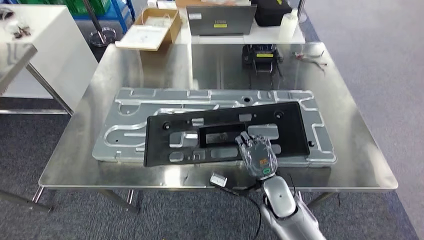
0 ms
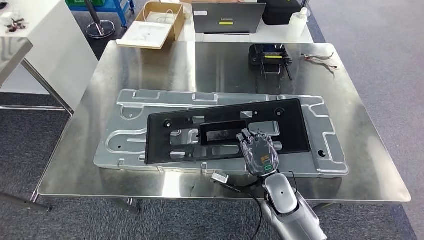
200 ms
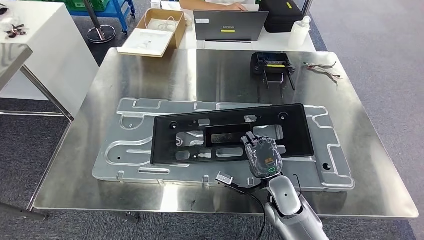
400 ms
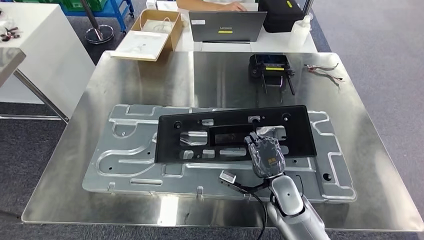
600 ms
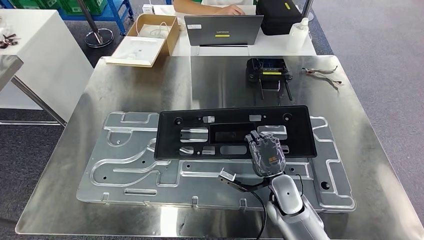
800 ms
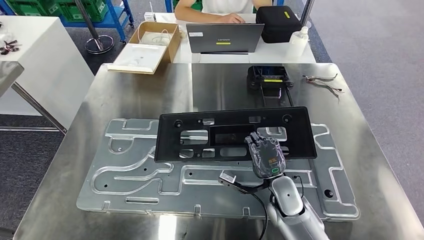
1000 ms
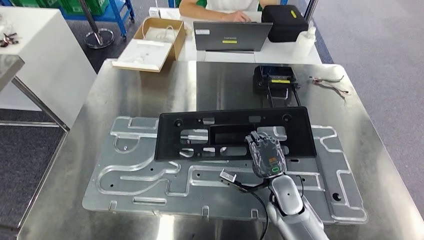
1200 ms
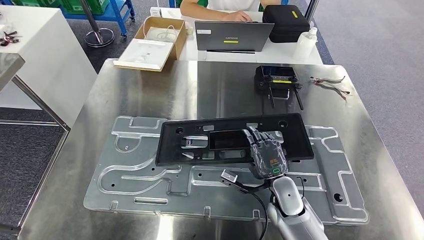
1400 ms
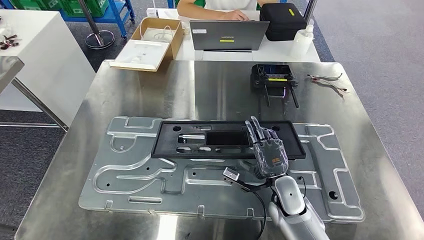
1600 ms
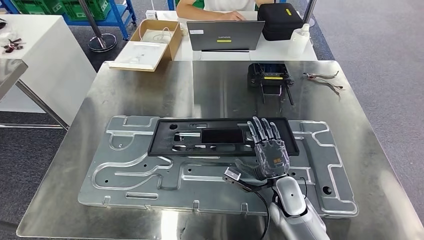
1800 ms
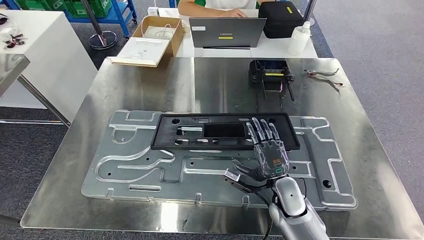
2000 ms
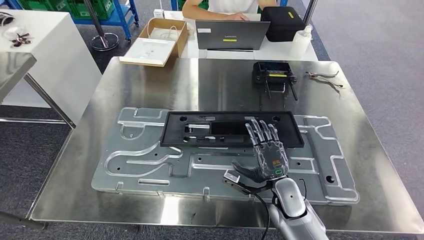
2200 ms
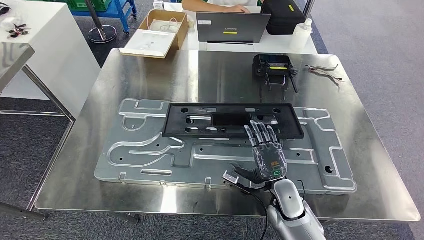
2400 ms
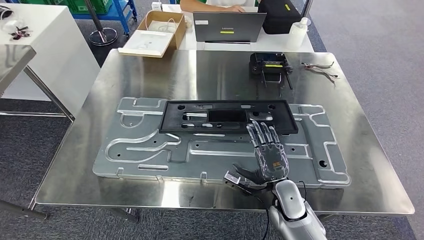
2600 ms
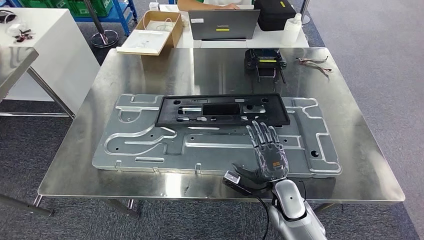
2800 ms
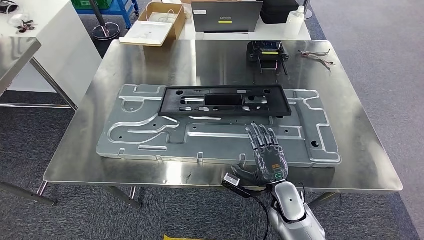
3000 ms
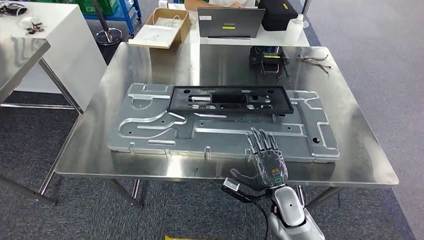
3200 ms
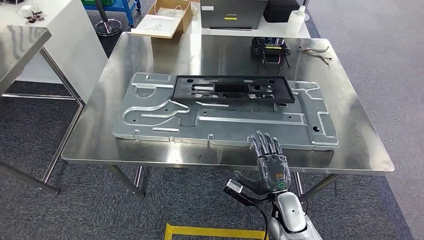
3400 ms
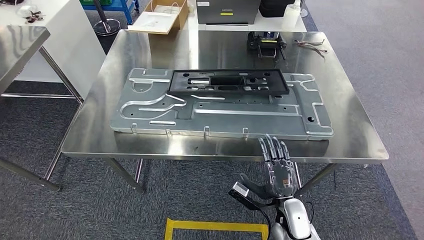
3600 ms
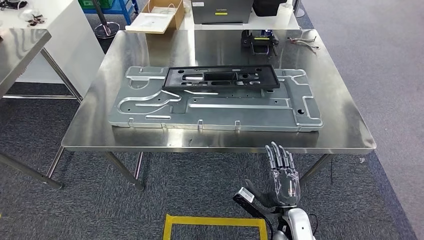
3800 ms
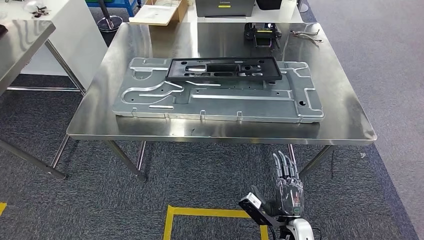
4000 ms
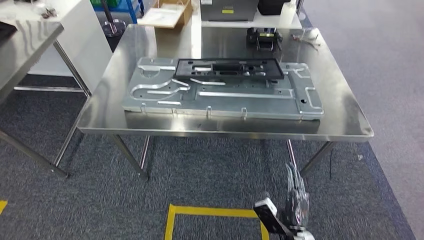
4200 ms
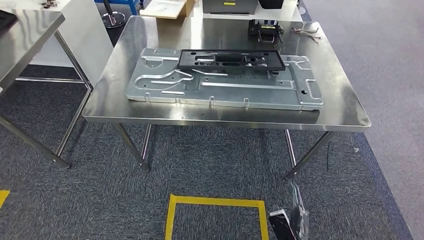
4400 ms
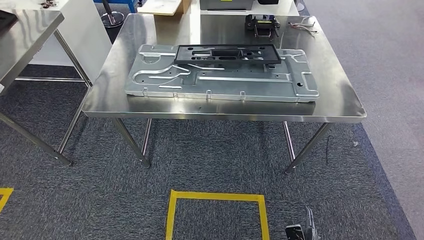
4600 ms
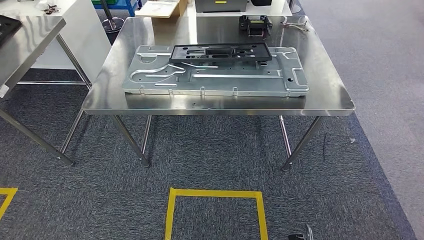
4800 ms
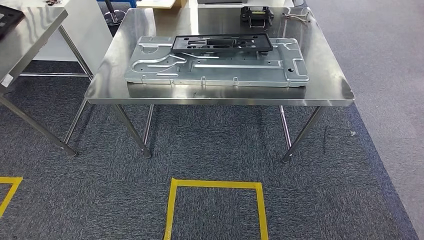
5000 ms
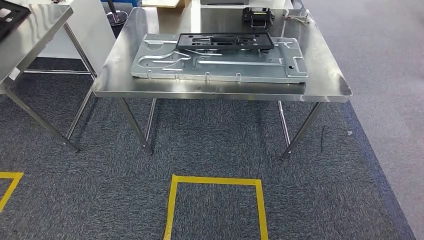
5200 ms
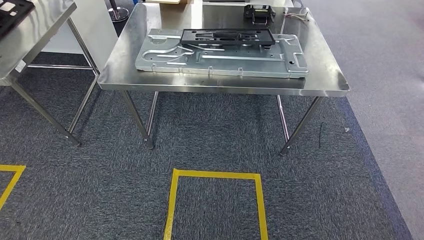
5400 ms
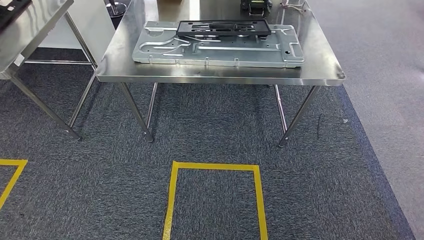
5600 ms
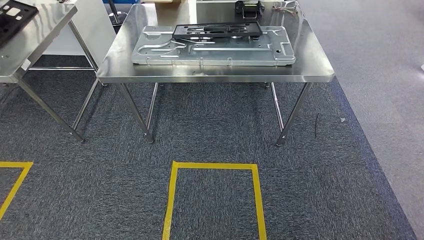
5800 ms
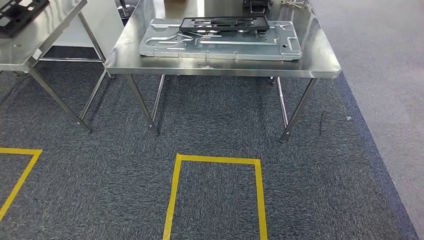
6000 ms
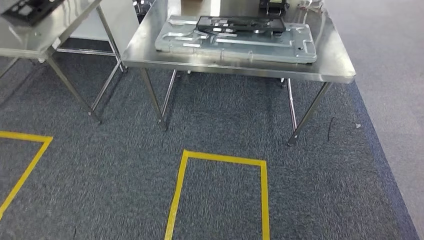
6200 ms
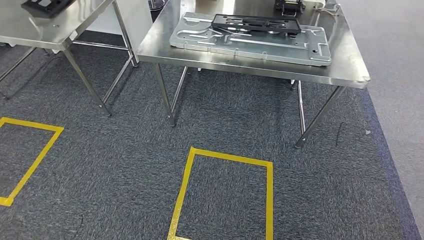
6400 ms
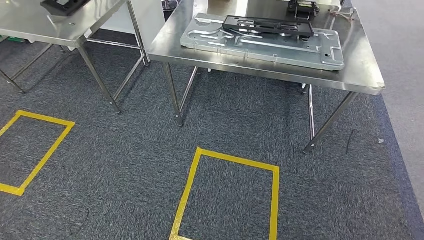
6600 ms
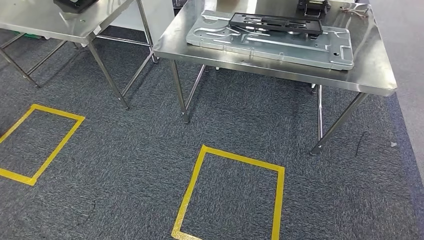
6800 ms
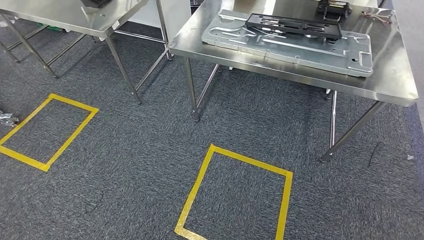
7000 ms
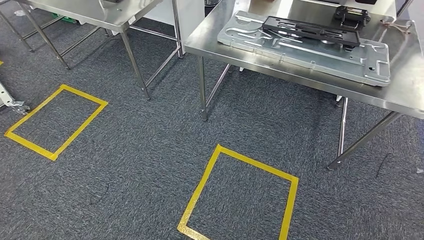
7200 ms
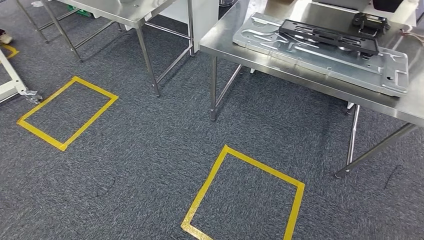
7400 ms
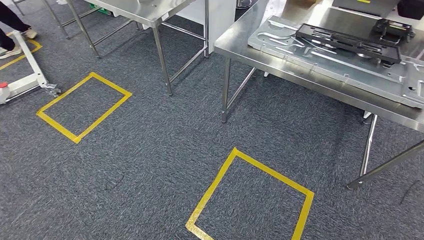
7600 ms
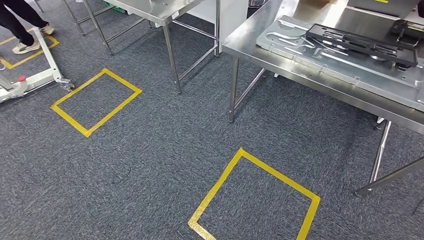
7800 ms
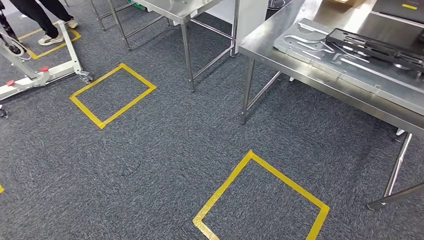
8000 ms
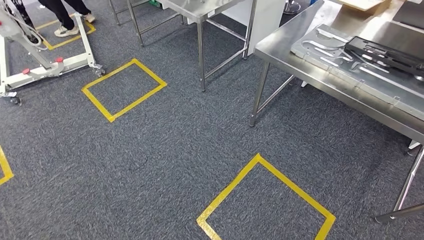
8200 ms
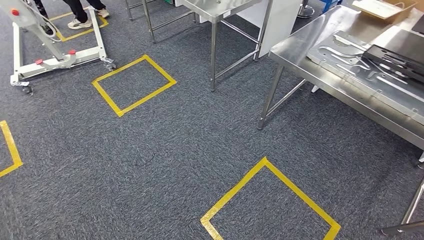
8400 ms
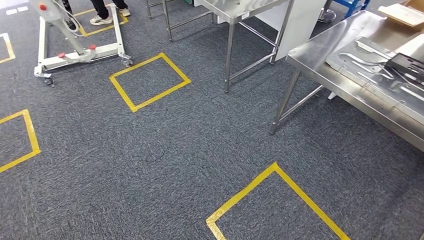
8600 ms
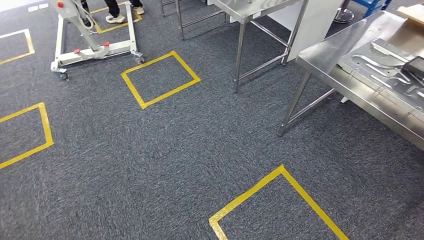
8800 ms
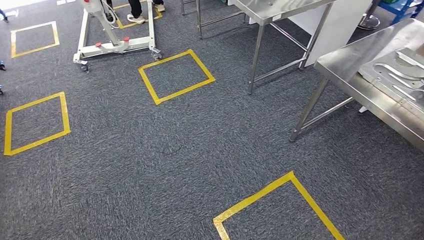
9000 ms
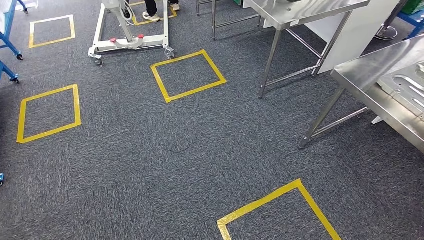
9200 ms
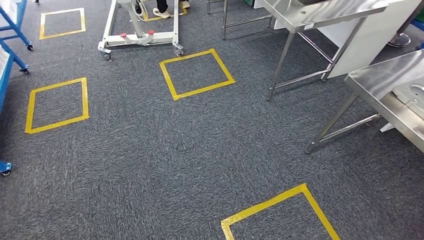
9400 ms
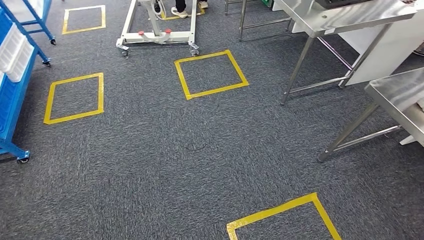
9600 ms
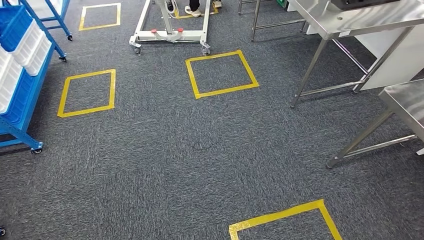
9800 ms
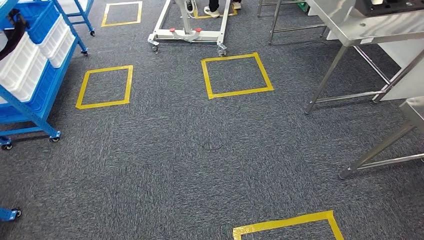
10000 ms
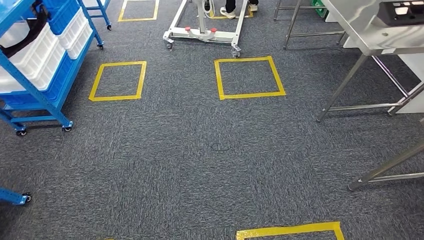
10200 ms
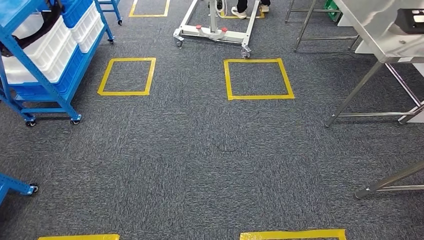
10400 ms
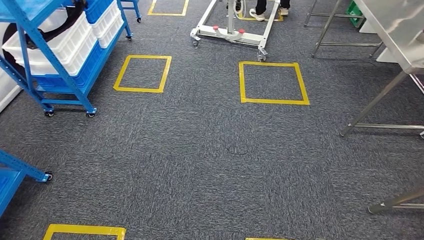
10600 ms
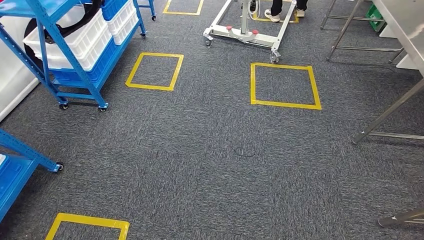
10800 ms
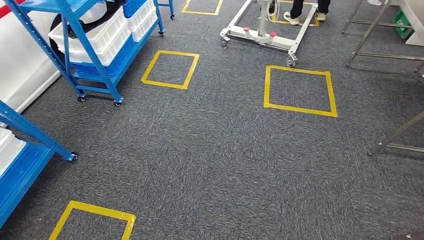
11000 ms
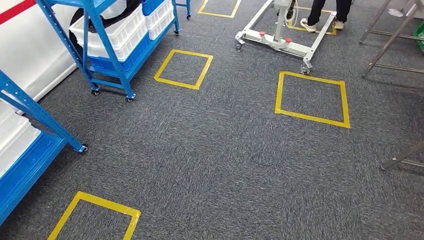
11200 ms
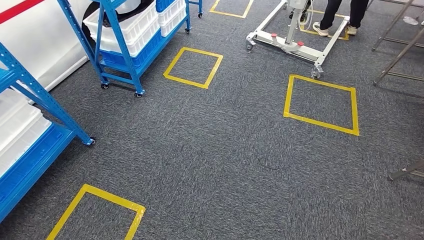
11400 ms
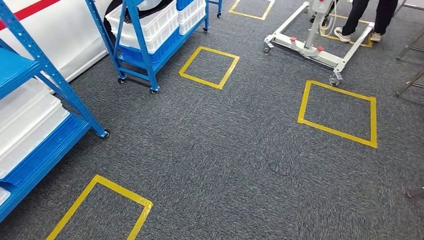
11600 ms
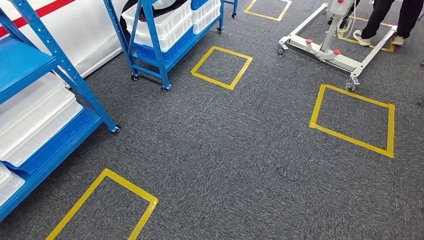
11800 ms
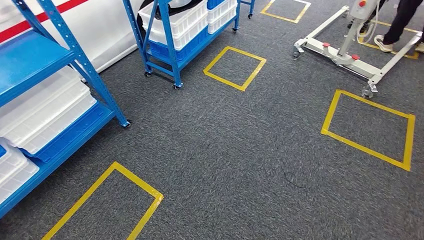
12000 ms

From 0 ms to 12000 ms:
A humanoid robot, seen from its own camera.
Step, from 0 ms to 5600 ms: Insert the large parts into the corresponding slots on the workbench.

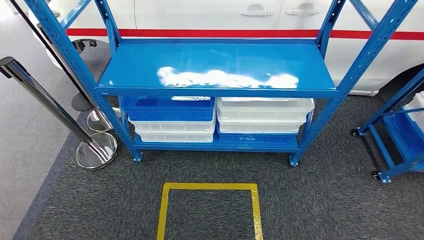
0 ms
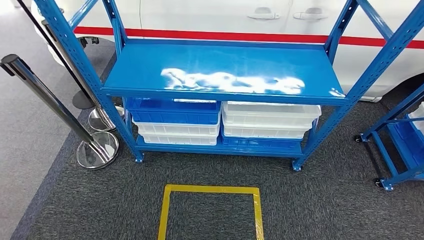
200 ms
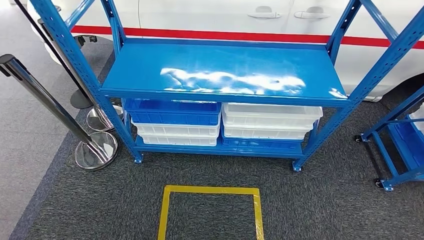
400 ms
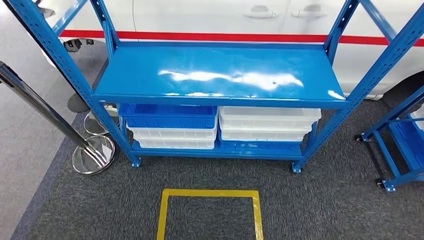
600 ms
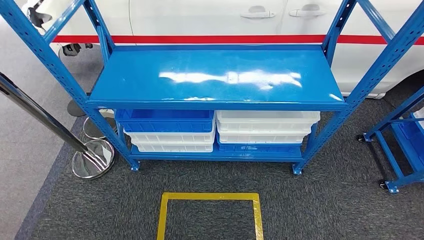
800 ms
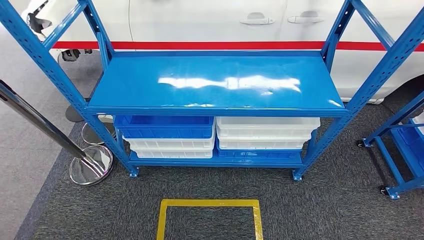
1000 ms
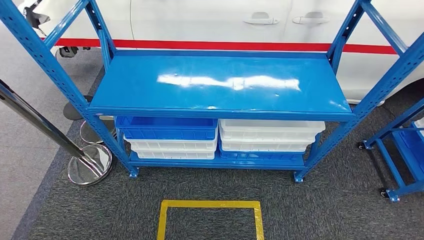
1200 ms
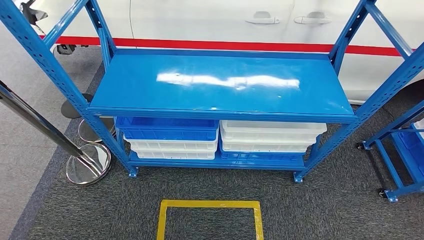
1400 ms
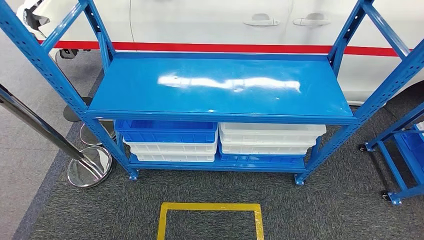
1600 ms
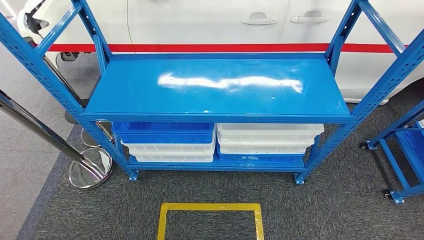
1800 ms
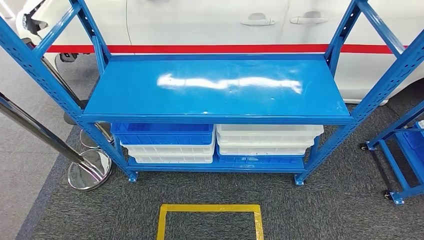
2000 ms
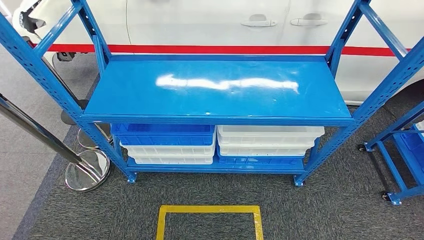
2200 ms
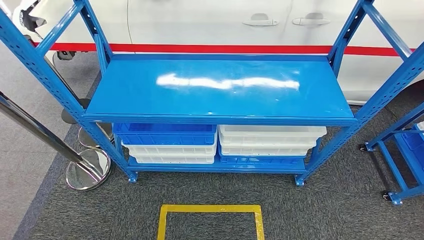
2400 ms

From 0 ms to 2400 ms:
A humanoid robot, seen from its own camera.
Step, from 0 ms to 2400 ms: Return to the initial position at the shelf.

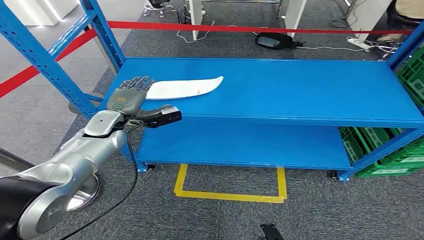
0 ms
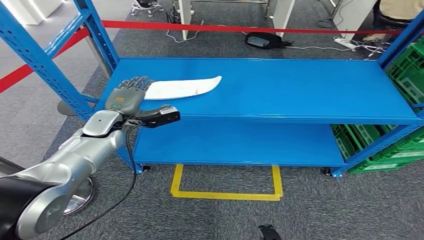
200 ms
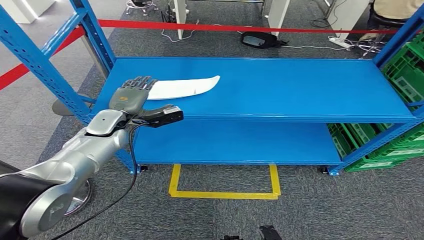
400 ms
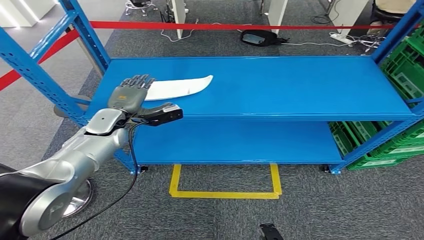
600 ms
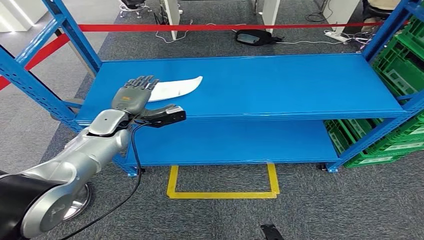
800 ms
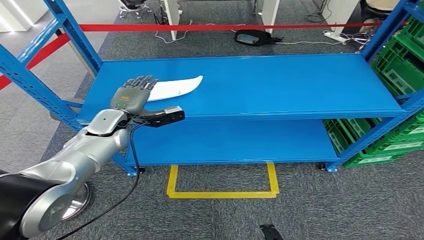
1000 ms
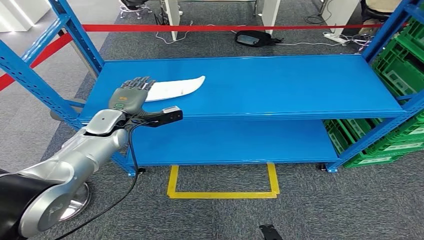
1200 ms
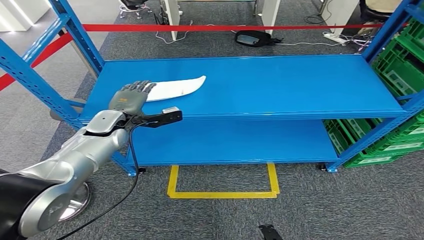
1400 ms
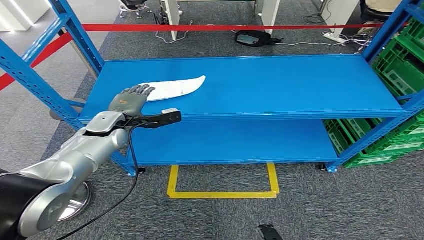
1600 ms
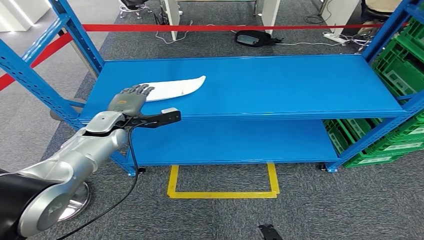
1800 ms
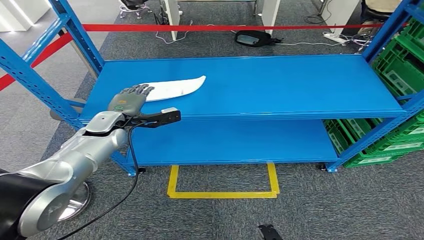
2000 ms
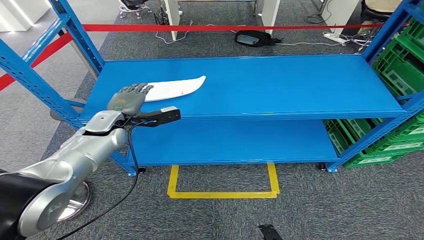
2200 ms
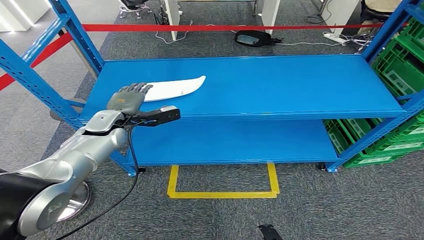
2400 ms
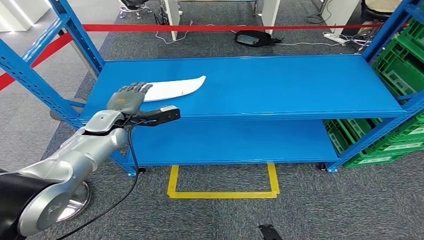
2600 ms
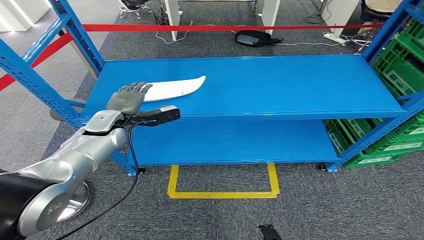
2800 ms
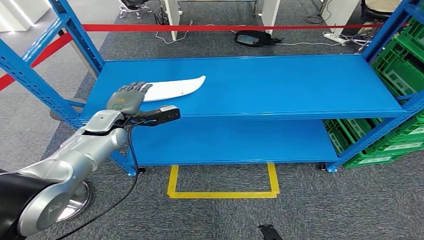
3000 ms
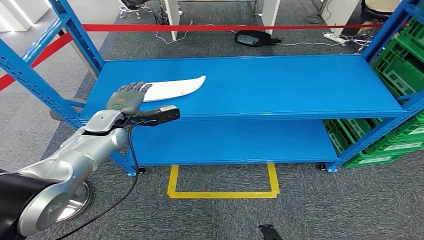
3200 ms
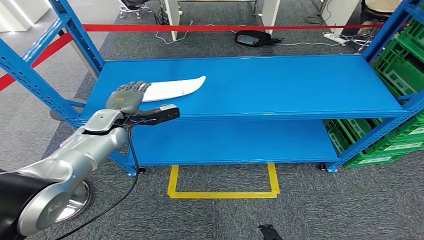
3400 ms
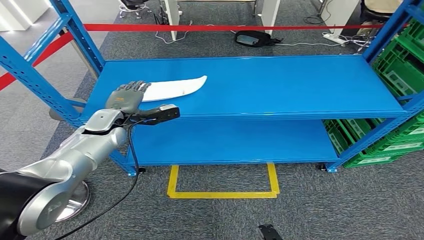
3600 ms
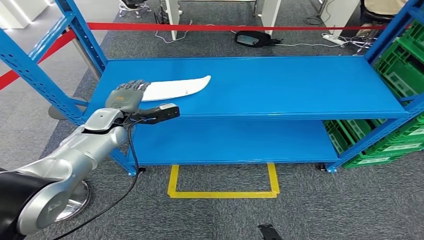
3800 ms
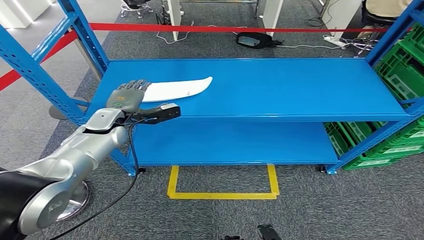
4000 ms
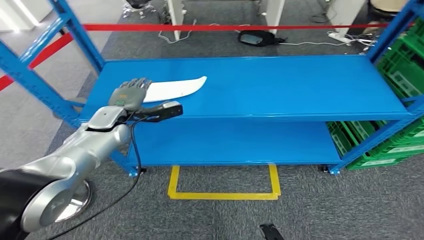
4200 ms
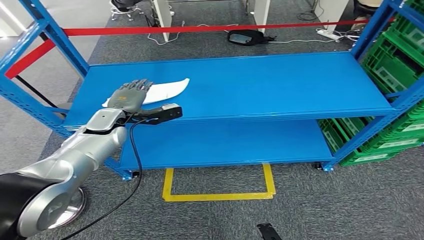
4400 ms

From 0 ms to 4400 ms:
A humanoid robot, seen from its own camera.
From 1400 ms to 3000 ms: Both hands stay put.
